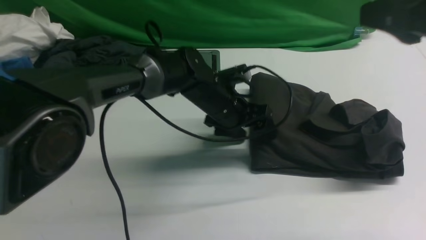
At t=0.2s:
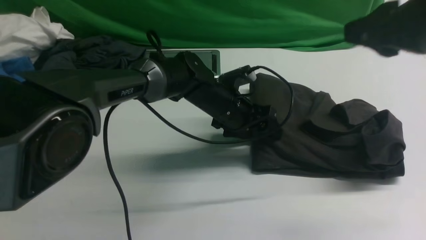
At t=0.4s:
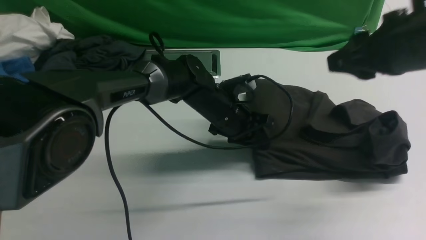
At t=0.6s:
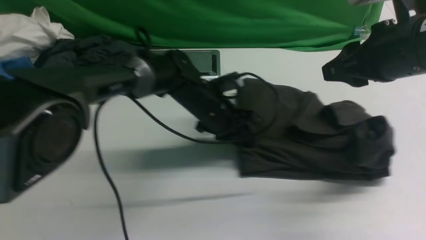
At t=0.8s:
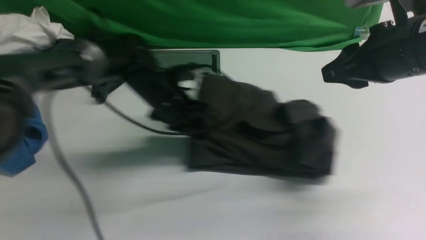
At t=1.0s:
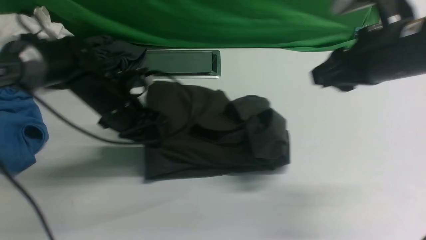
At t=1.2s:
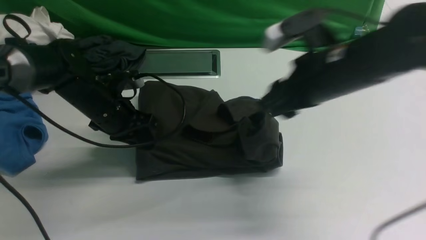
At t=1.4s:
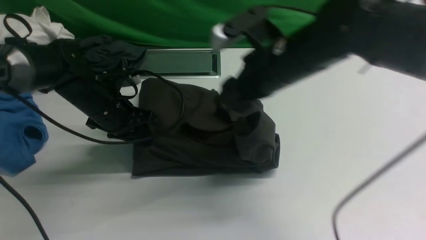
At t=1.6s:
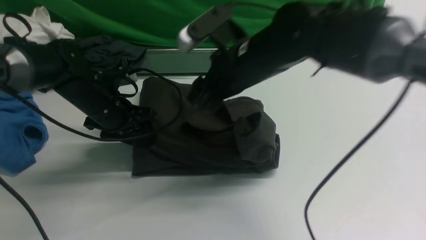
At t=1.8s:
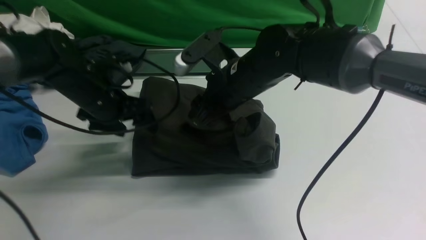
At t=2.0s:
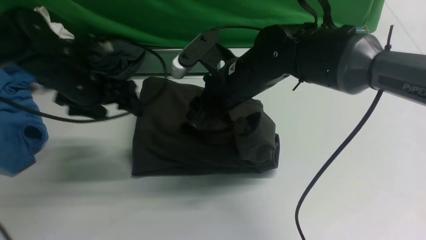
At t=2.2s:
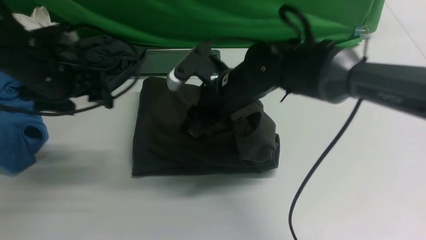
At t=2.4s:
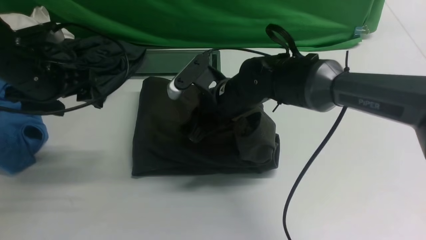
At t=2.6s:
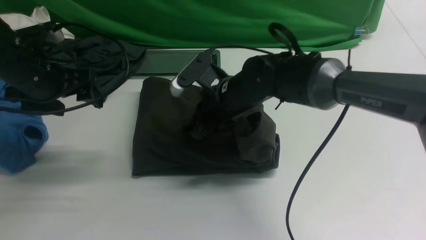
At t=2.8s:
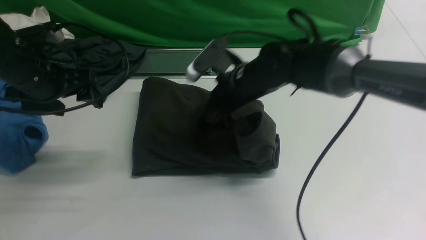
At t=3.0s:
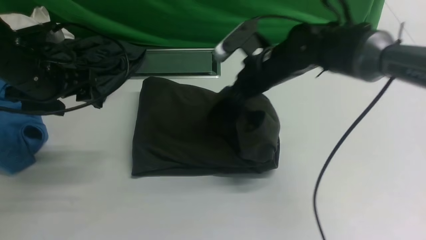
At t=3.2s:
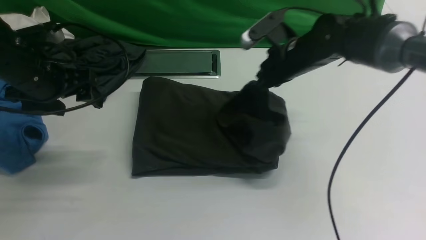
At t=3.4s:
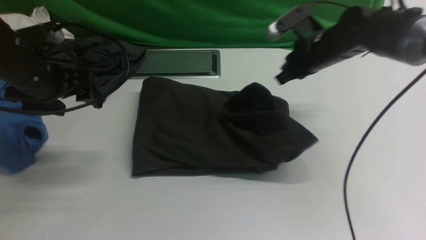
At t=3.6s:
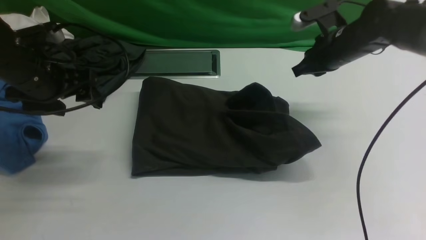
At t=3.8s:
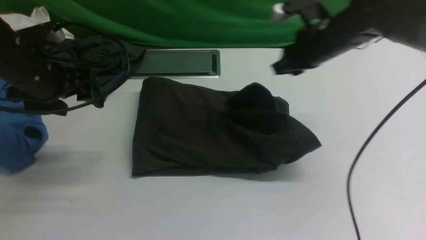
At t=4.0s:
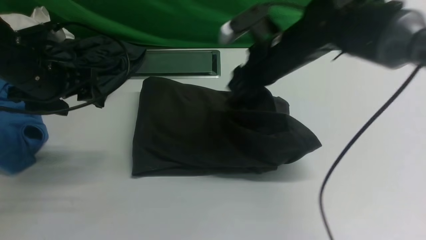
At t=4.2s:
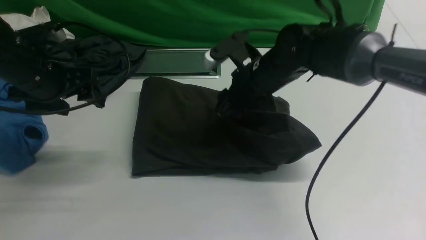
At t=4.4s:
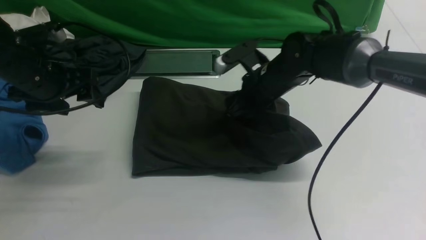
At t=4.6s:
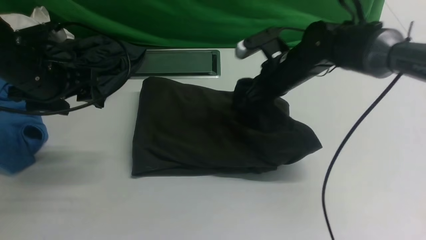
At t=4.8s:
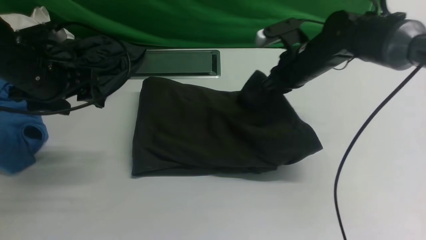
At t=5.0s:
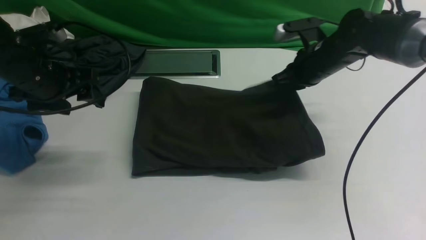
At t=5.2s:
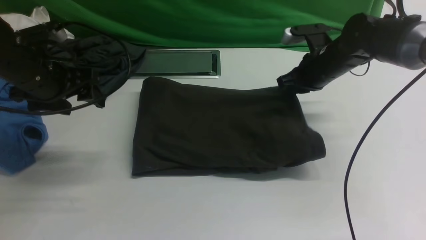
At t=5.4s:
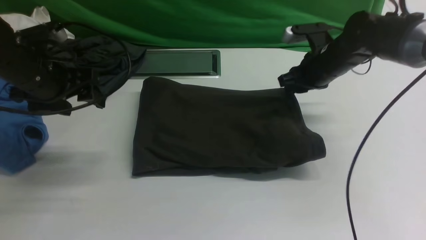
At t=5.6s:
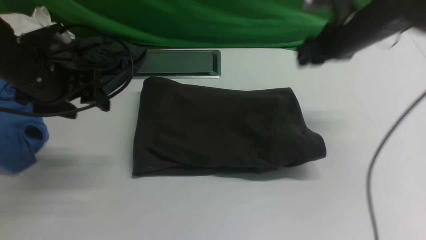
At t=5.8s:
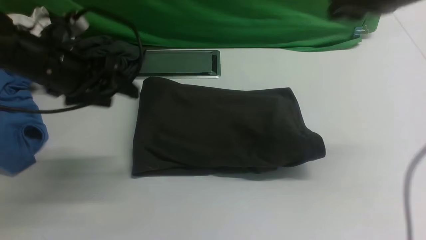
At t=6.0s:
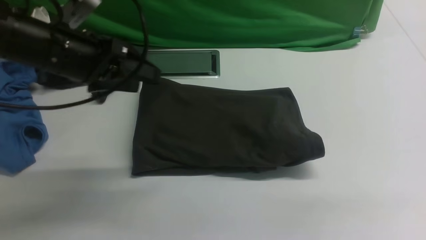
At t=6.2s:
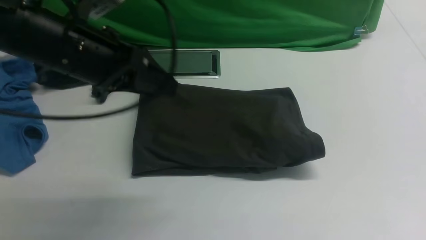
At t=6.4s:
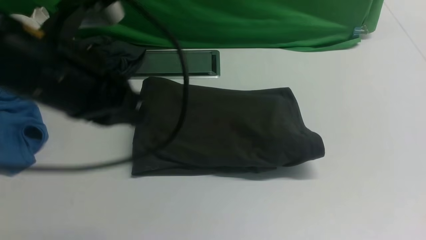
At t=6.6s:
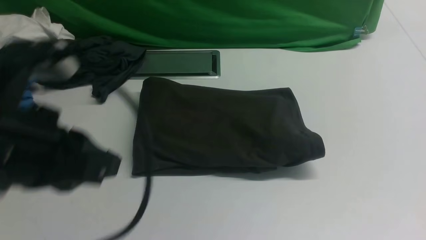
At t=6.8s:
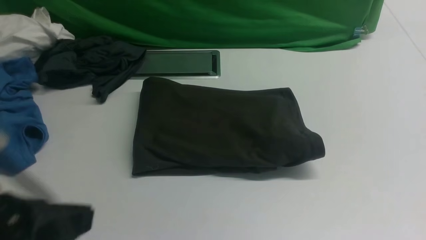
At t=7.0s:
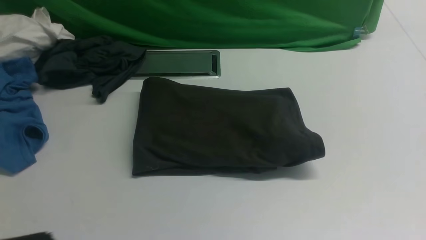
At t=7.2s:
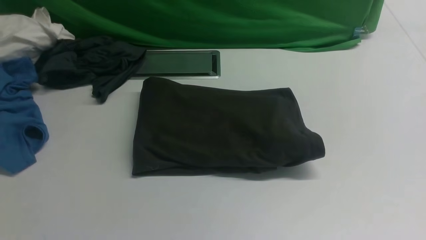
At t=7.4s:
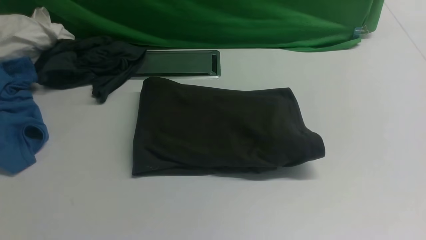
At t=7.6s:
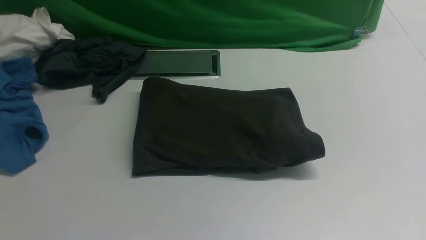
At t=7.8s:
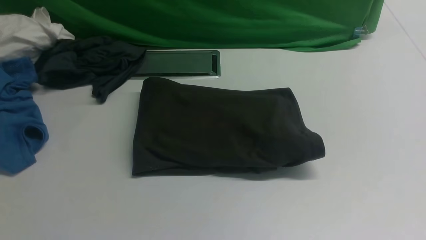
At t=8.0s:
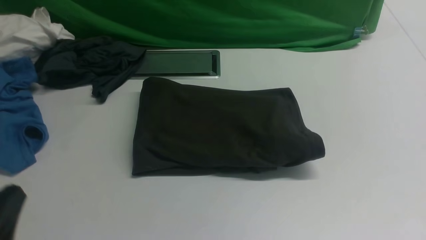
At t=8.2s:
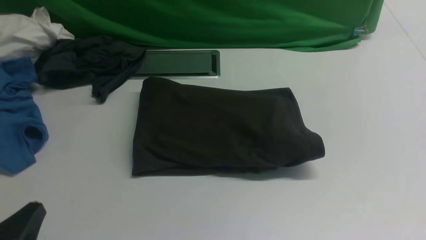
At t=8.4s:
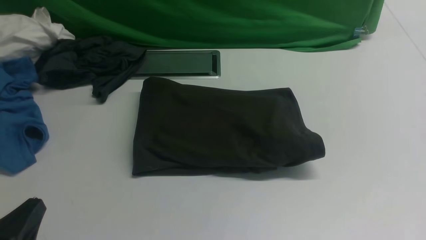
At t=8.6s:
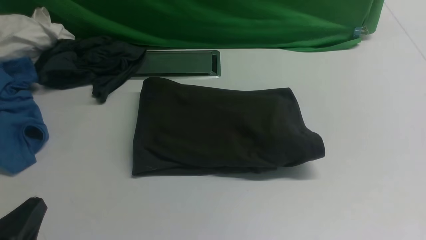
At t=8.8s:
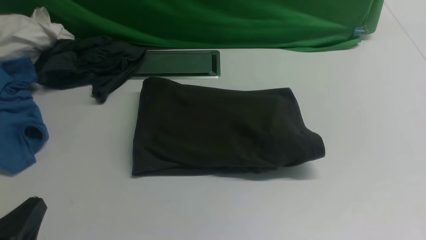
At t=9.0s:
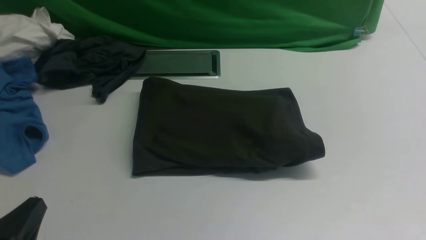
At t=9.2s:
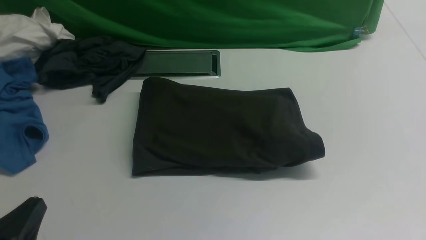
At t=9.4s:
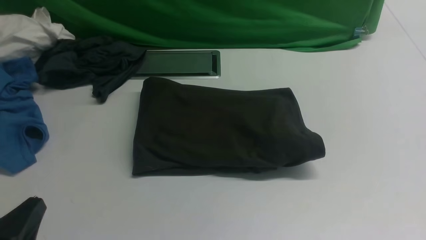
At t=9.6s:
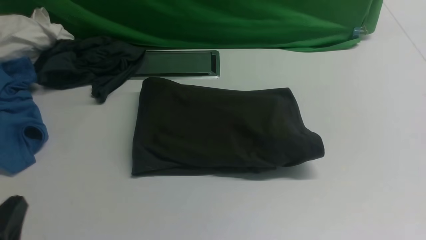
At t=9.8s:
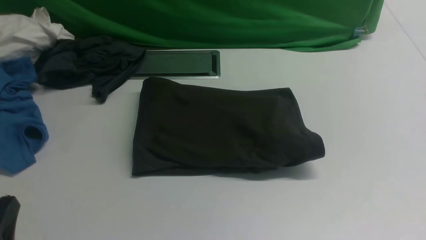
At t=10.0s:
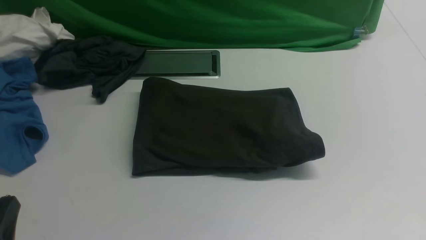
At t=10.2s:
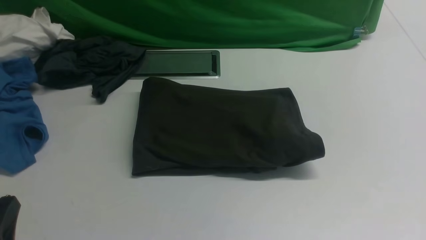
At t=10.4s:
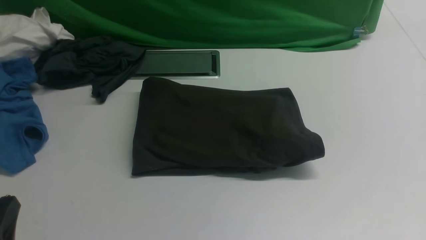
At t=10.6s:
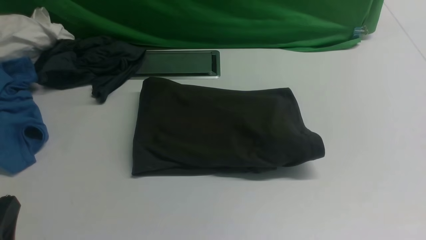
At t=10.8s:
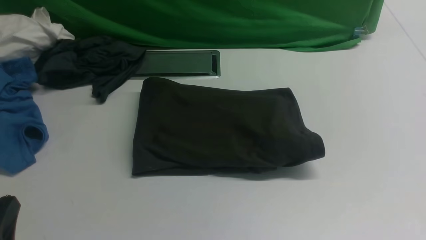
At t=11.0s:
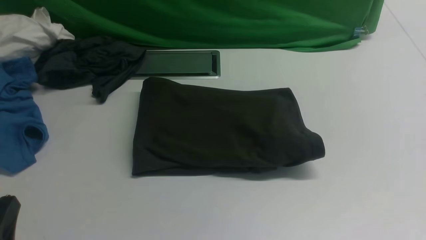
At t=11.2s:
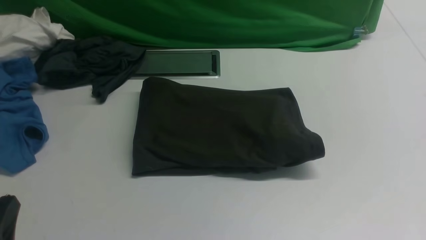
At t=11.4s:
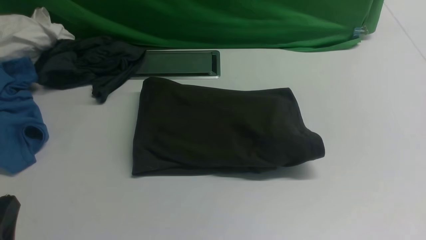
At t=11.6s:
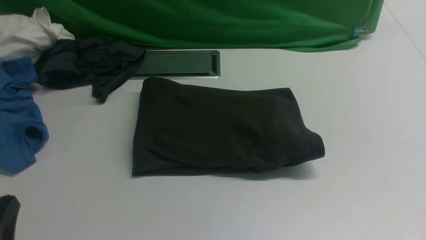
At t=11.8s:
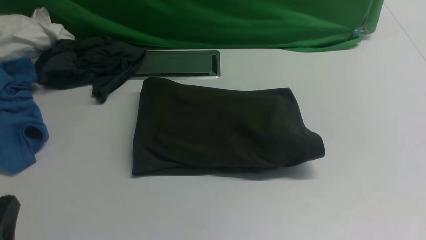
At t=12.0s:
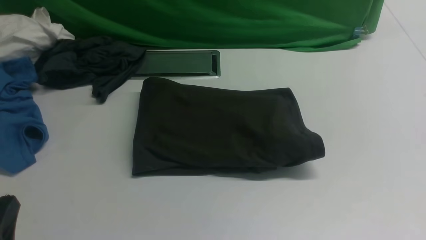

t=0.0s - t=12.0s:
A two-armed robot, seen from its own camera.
t=0.0s - t=1.6s: The left gripper heads to the left, covering roughly 20 cm, and closes, then opens again. The right gripper goes roughly 25 cm to the left, downward and forward, and opens its fingers.
t=1.6s - t=3.0s: The left gripper heads upward and to the left, covering some 10 cm. The right gripper is displaced forward, to the right and downward by roughly 10 cm, and closes.
t=3.0s - t=4.4s: The right gripper reaches about 10 cm to the right, then returns, and opens up.
t=4.4s - t=6.0s: The left gripper shifts some 10 cm to the right and upward, while the right gripper moves upward, to the right and backward, about 30 cm.
t=6.0s - t=7.6s: The left gripper travels backward by about 30 cm, and closes.
t=7.6s - t=9.0s: The left gripper shifts roughly 15 cm downward and forward.
t=9.0s - t=10.4s: The grippers make only small movements.

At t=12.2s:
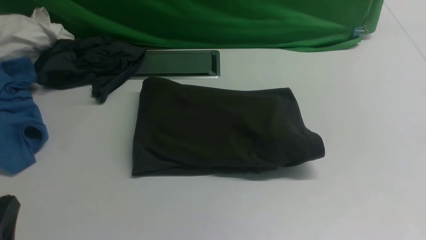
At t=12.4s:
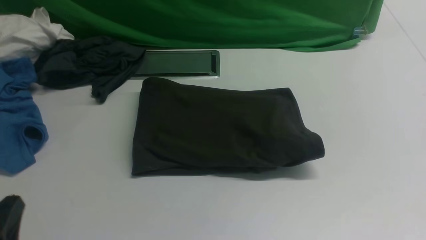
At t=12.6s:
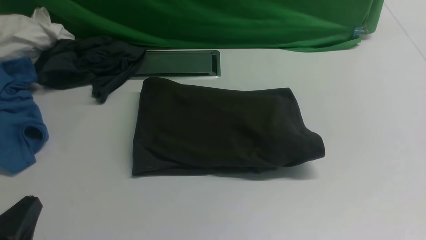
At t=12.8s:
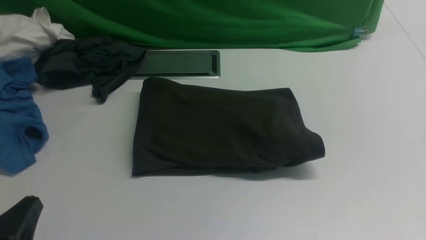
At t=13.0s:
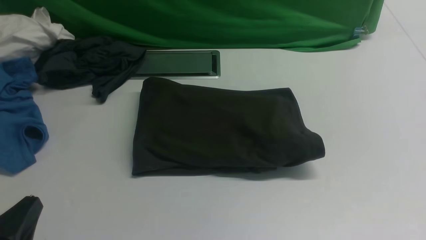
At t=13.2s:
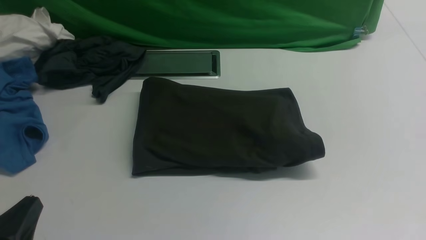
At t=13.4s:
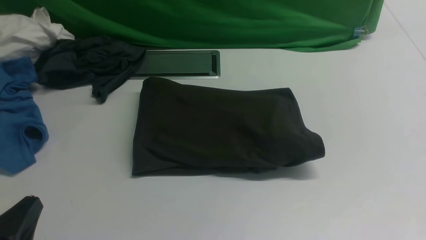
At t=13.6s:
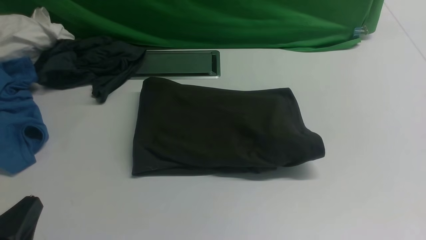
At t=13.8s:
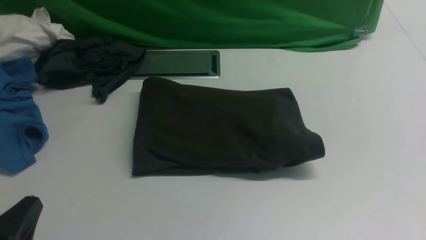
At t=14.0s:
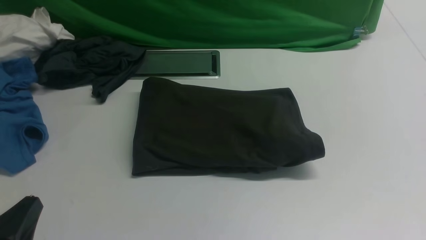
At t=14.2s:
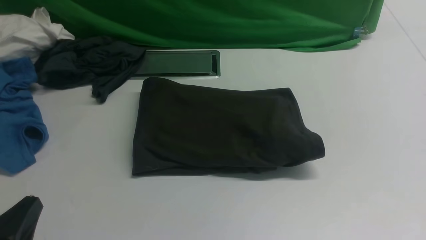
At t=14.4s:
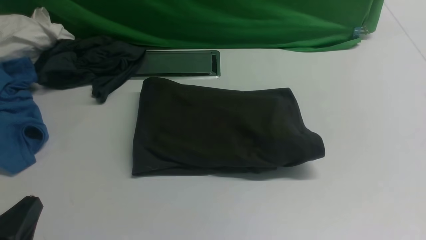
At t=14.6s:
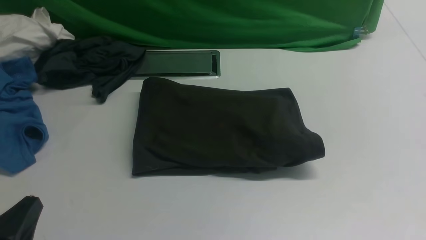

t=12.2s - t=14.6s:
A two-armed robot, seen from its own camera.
t=12.2s - t=13.4s: The grippers stay close to where they were, moving slightly.
t=13.4s - t=14.6s: Both grippers stay about where they are.
